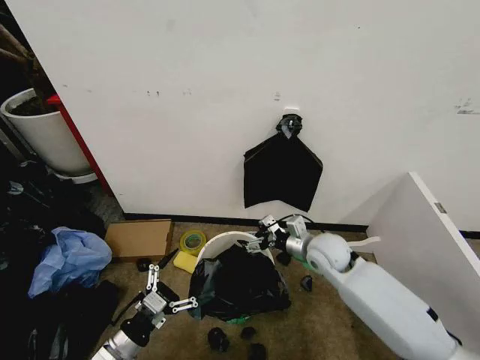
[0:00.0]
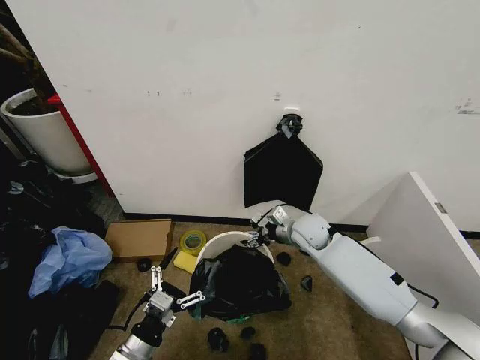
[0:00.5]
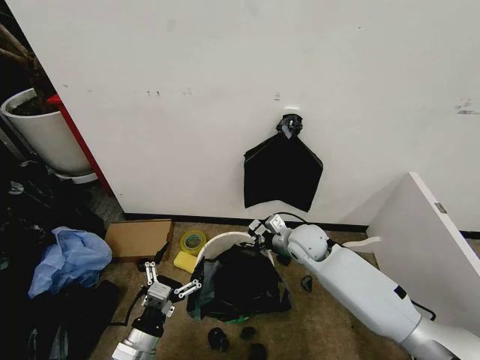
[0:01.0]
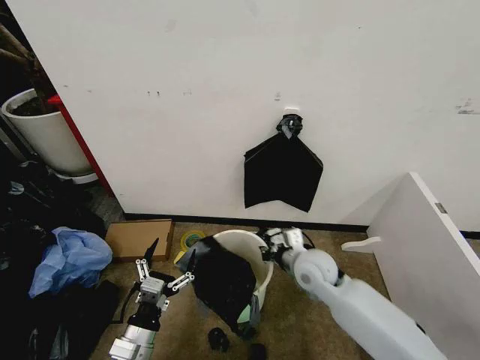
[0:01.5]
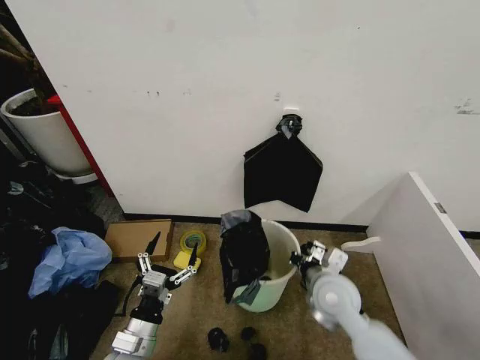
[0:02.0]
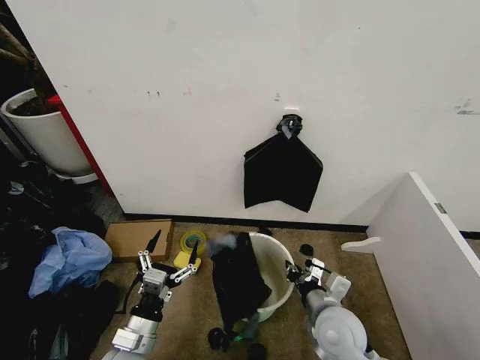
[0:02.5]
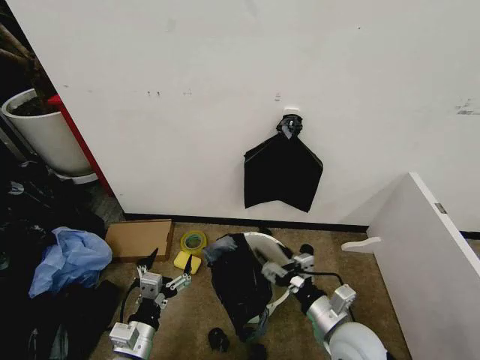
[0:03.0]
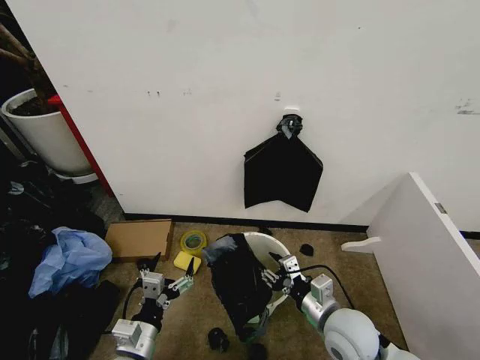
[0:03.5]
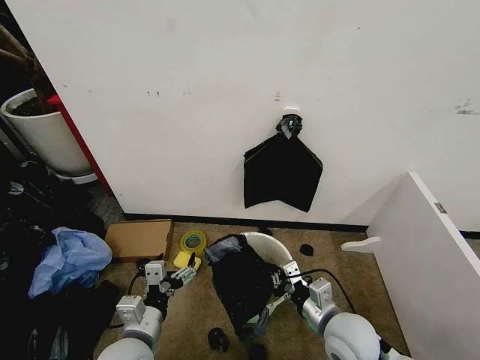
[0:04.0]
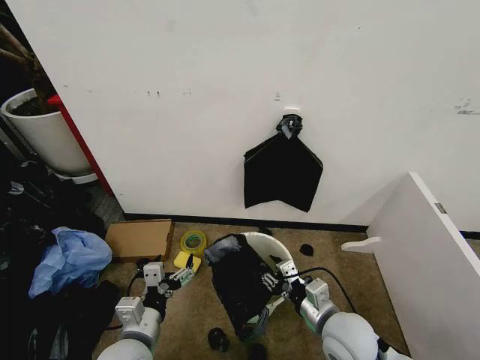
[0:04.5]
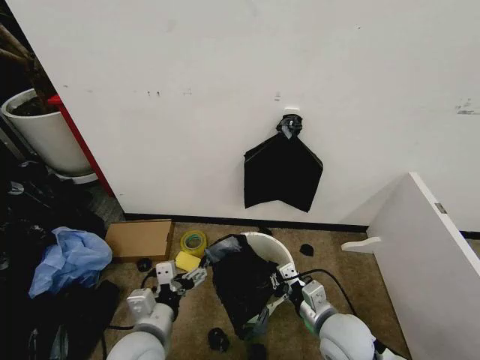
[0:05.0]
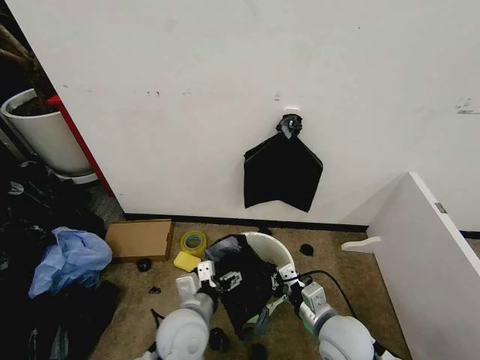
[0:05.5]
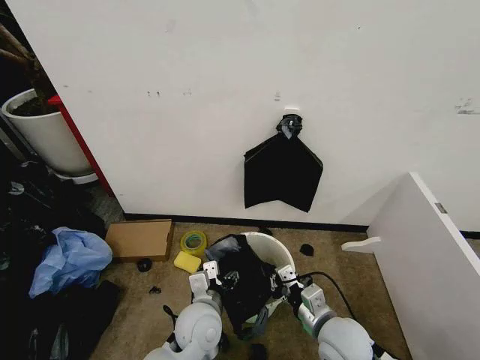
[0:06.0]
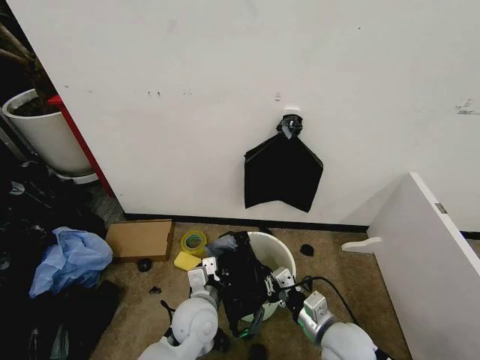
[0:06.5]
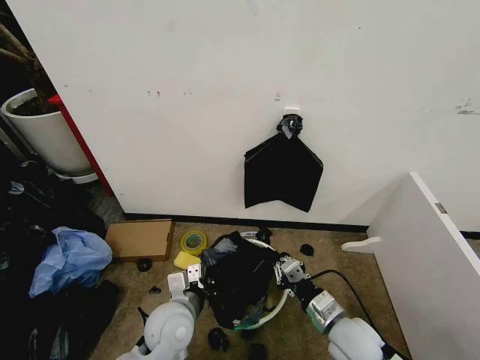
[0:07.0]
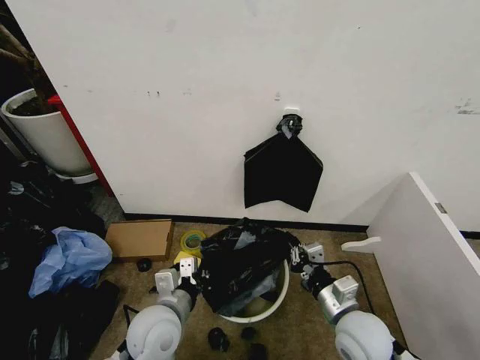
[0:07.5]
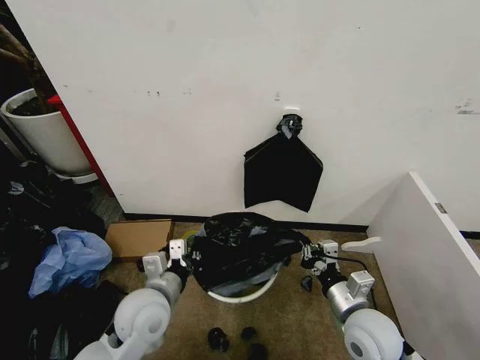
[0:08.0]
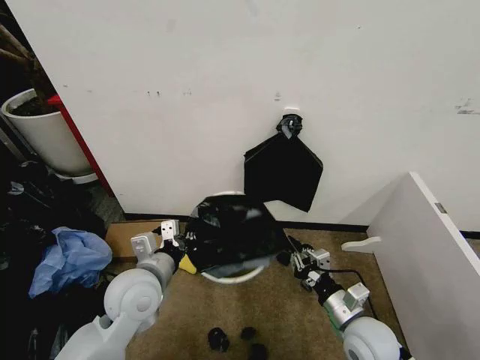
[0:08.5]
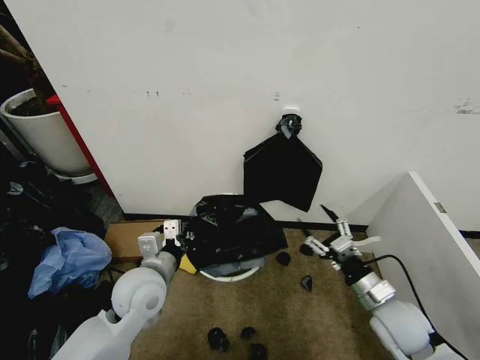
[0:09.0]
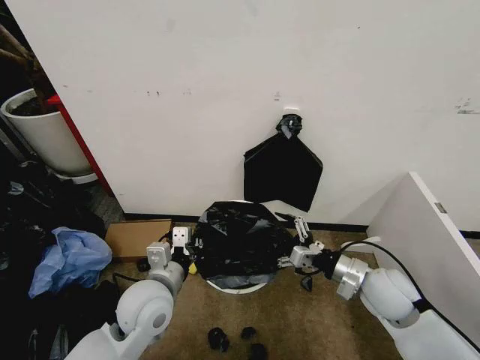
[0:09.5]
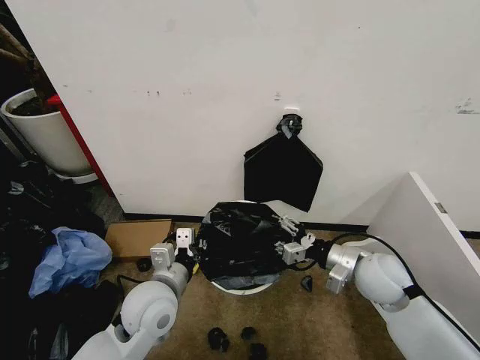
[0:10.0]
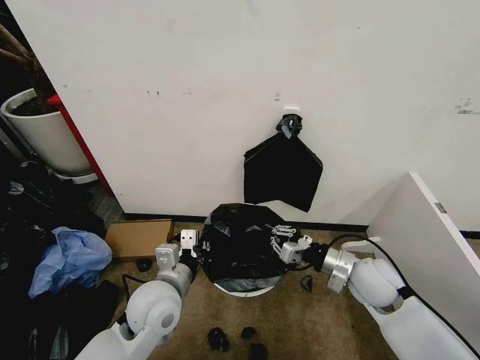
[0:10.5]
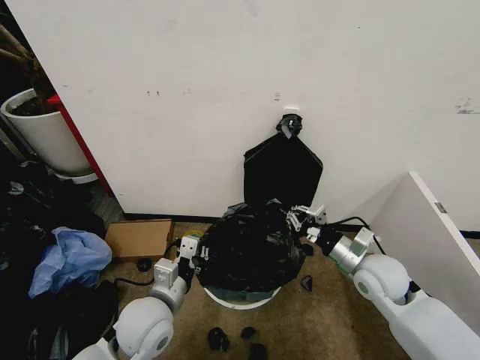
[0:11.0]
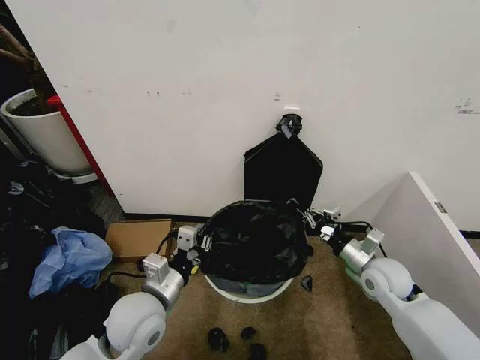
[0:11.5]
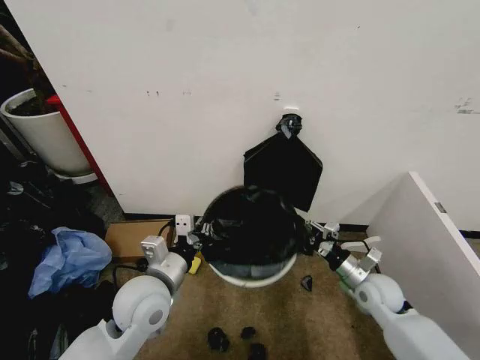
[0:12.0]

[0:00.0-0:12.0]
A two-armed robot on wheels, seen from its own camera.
Task of the whole recording: Place the garbage bag over the trash bin.
0:00.0 to 0:02.0: The right gripper heads backward, covering some 10 cm, and closes up, while the left gripper goes approximately 5 cm to the right.
0:02.0 to 0:04.0: The left gripper shifts by roughly 5 cm; the right gripper moves backward, about 5 cm, and opens, then closes once more.
0:04.0 to 0:06.0: The left gripper shifts roughly 15 cm to the right and forward. Meanwhile the right gripper opens and closes again.
0:06.0 to 0:08.0: The left gripper shifts some 10 cm to the left and upward, and closes up. Meanwhile the right gripper heads to the right, covering about 5 cm.
0:08.0 to 0:10.0: The right gripper shifts about 10 cm forward and upward, and opens its fingers.
0:10.0 to 0:12.0: The right gripper travels downward by roughly 10 cm, and closes its fingers.

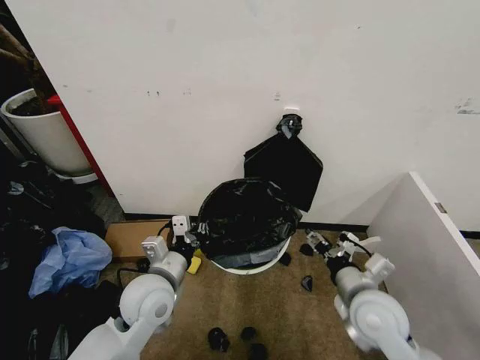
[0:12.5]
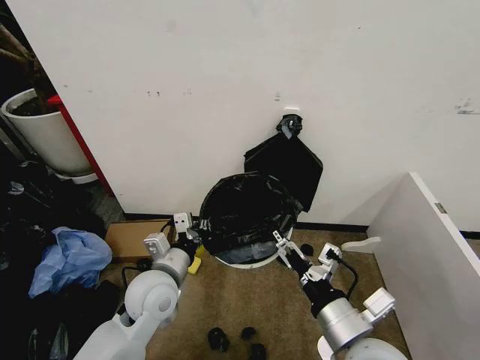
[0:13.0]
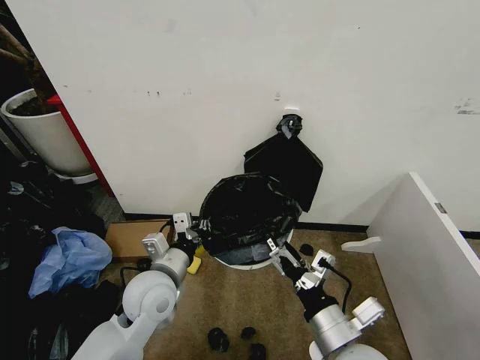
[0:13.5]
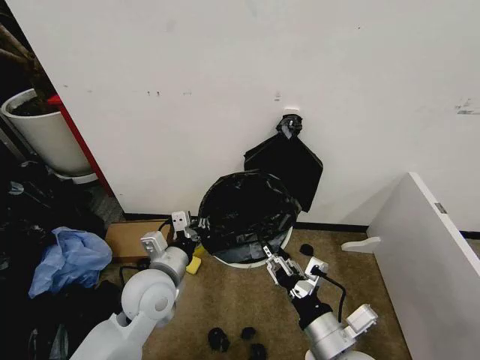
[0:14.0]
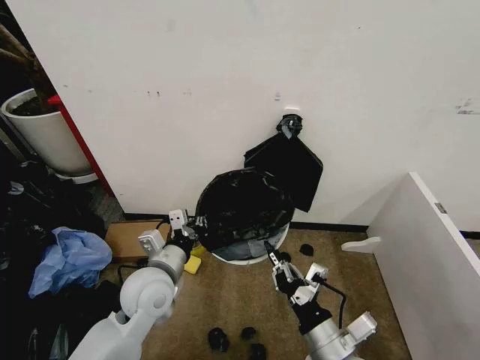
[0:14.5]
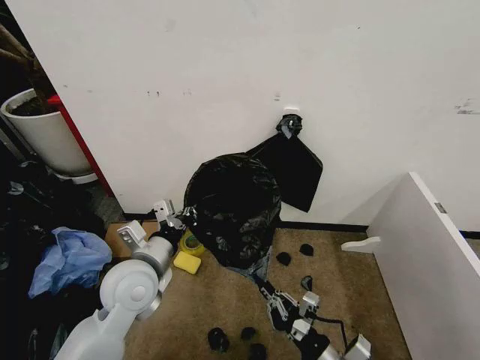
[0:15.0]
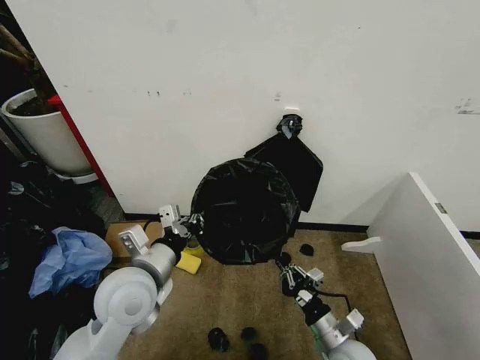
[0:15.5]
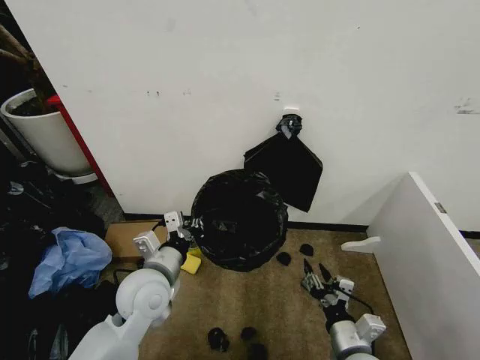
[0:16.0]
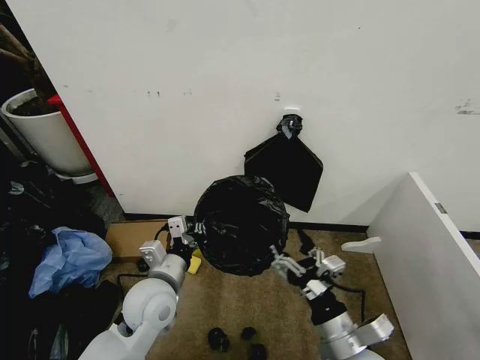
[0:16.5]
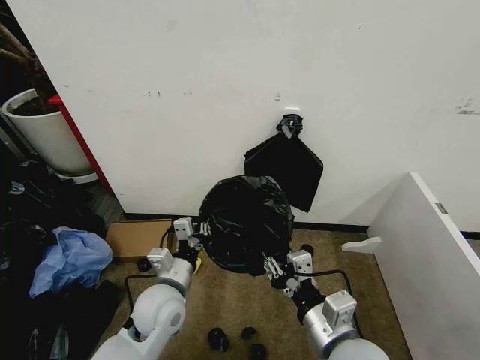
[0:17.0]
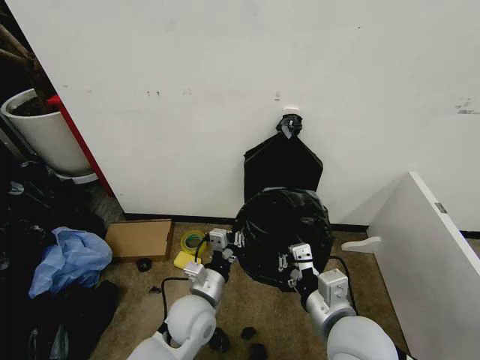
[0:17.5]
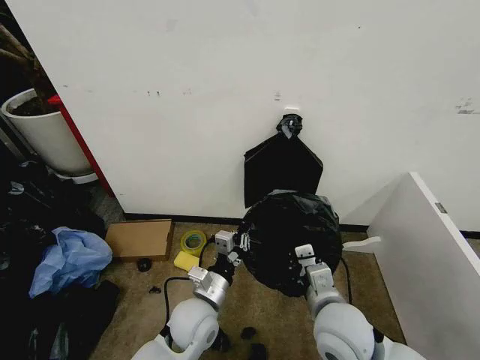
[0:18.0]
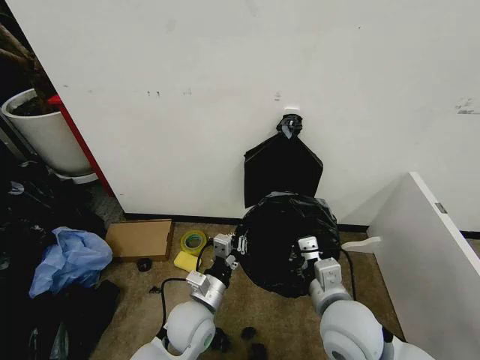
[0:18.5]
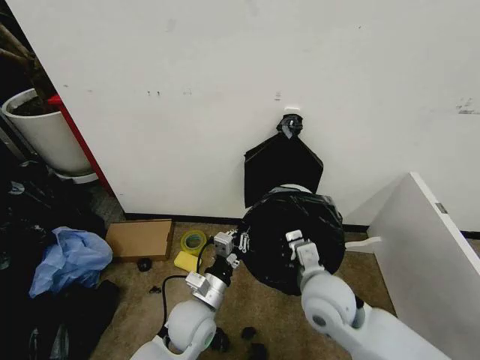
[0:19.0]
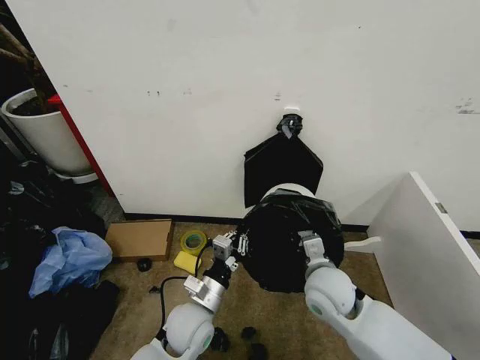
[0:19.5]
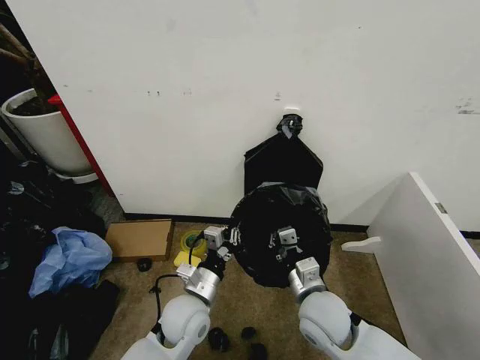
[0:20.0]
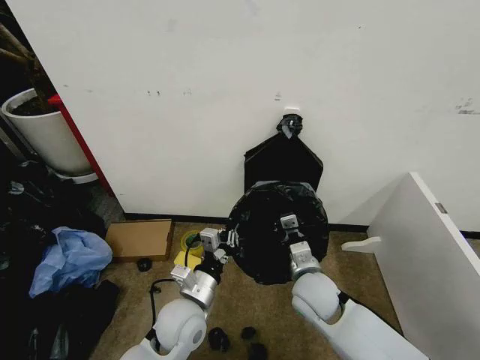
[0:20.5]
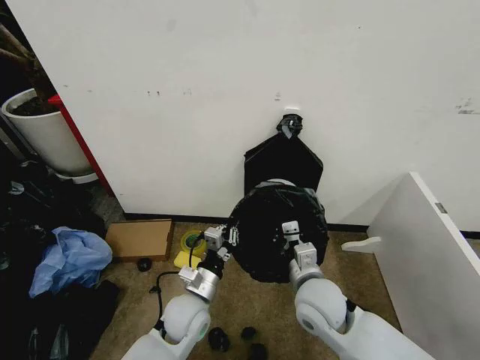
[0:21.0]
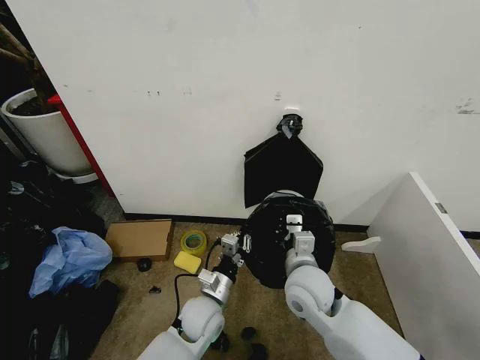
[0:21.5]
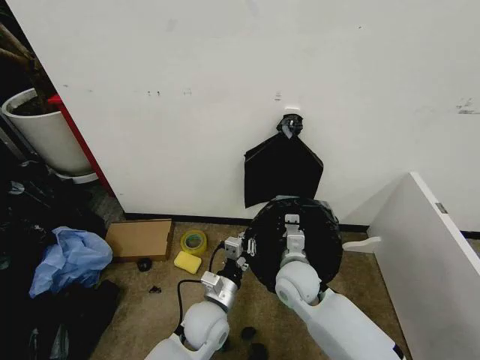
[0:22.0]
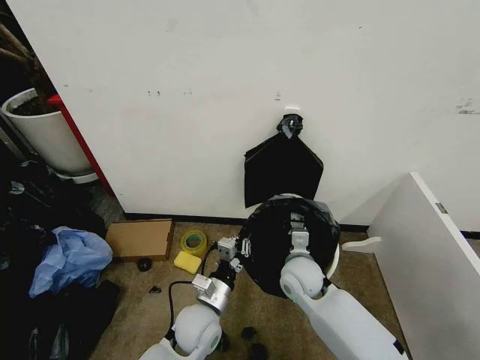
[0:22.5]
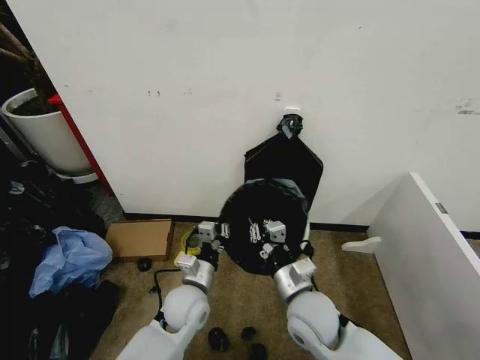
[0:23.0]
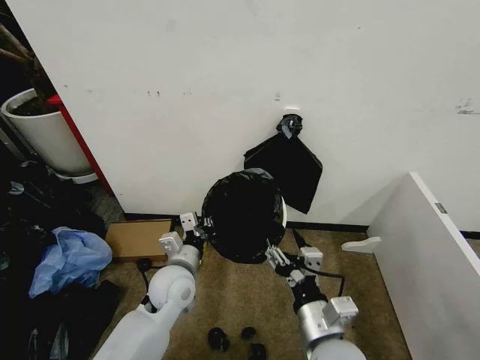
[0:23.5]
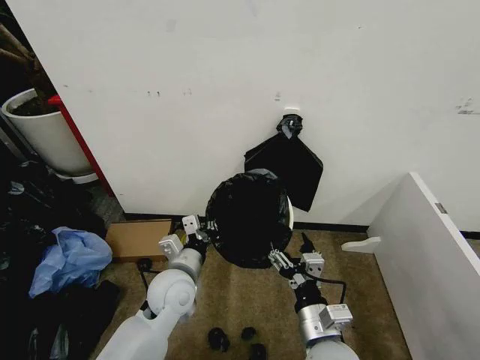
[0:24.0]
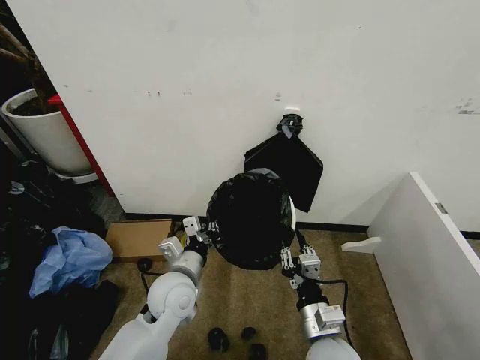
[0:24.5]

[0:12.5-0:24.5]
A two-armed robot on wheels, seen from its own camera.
Task of the whole recording: Place the garbage bag over the trash bin.
0:12.5 to 0:14.5: The right gripper goes some 10 cm backward and to the left, and closes up.
0:14.5 to 0:16.5: The right gripper goes downward and returns, roughly 10 cm each way, and opens.
0:16.5 to 0:18.5: The right gripper is displaced forward by some 10 cm, and closes; the left gripper heads to the right and downward, covering about 10 cm.
0:18.5 to 0:20.5: The right gripper shifts by some 5 cm.
0:20.5 to 0:22.5: The left gripper moves approximately 5 cm. The right gripper goes about 10 cm forward.
0:22.5 to 0:24.5: The left gripper is displaced upward and to the left by some 10 cm. The right gripper travels backward by about 20 cm, and opens, then closes again.

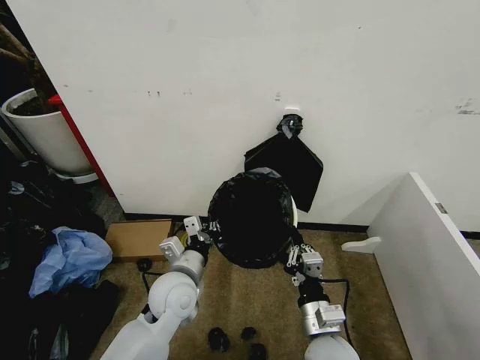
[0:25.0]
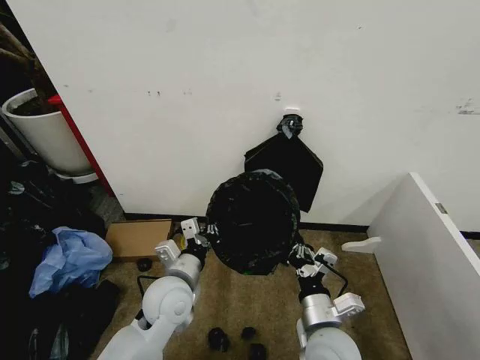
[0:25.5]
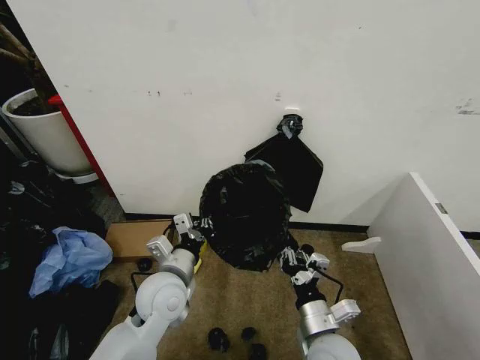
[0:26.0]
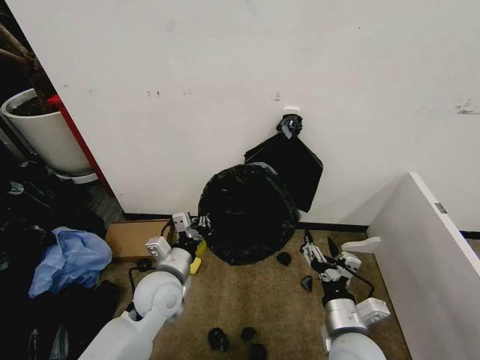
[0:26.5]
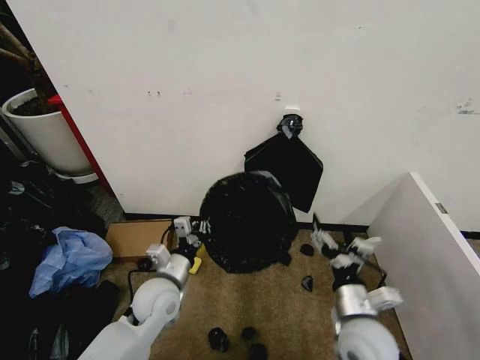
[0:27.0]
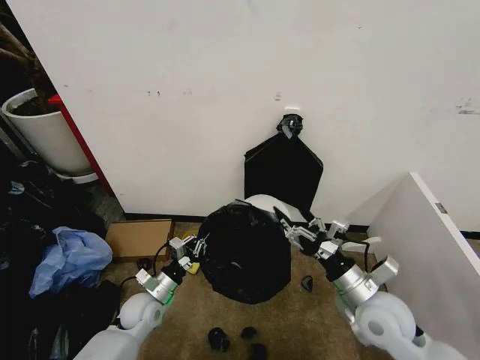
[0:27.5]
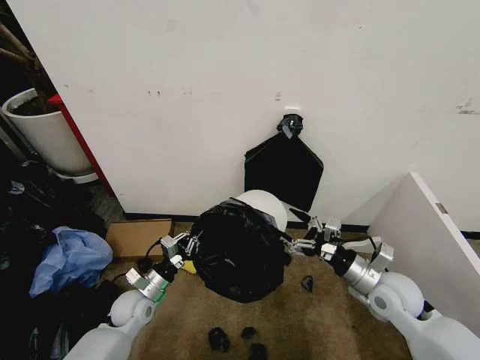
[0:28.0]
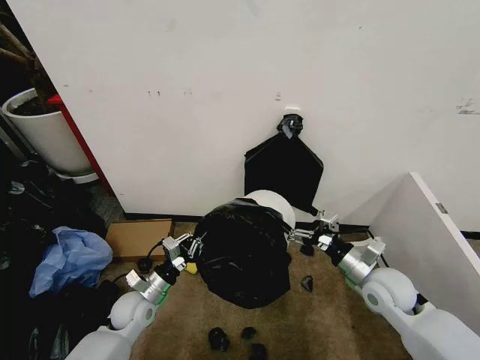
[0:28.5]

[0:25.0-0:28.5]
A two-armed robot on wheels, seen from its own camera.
Task of the whole recording: Place the garbage bag over the trash bin.
0:25.0 to 0:27.0: The right gripper heads to the right, covering approximately 5 cm, and opens.
0:27.0 to 0:28.5: The right gripper travels forward and to the right by roughly 15 cm. The left gripper moves downward and to the left, about 15 cm.
